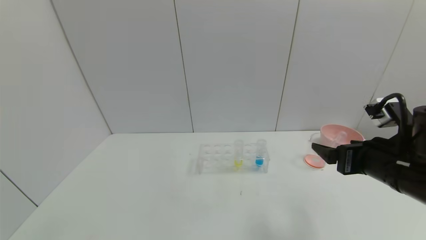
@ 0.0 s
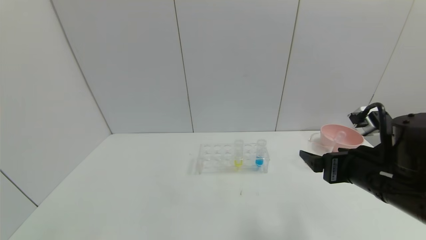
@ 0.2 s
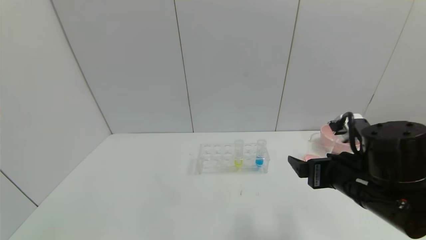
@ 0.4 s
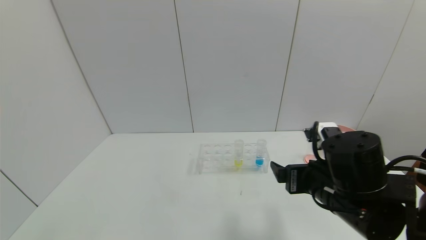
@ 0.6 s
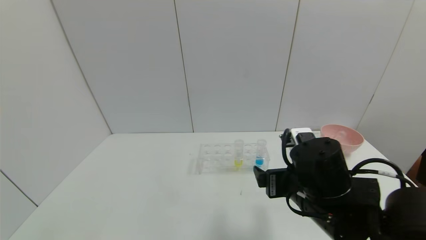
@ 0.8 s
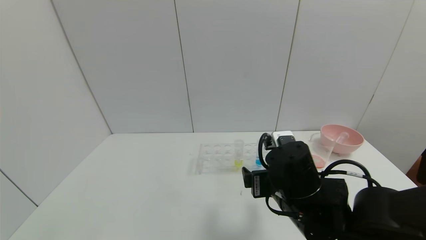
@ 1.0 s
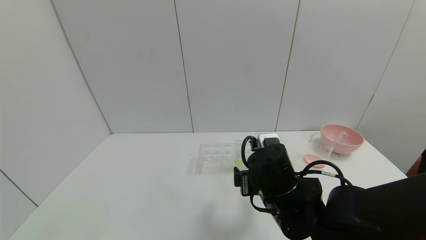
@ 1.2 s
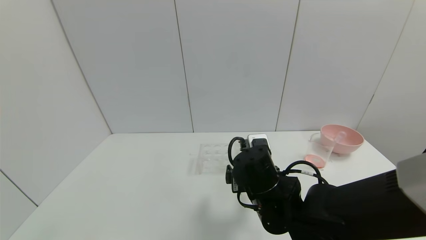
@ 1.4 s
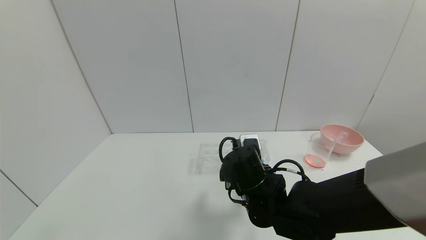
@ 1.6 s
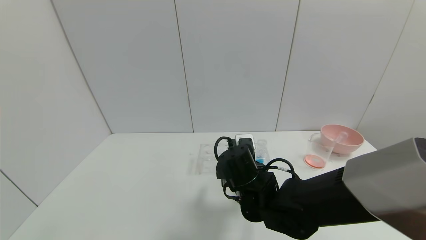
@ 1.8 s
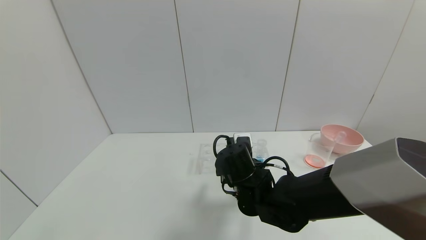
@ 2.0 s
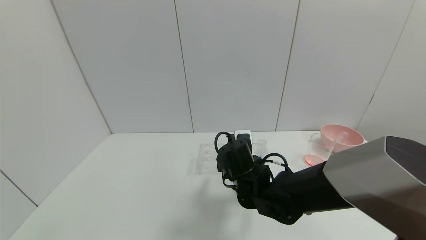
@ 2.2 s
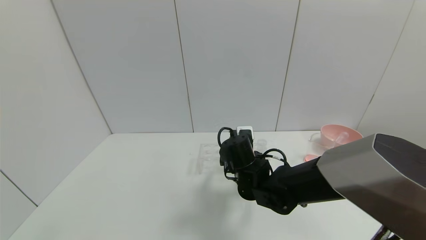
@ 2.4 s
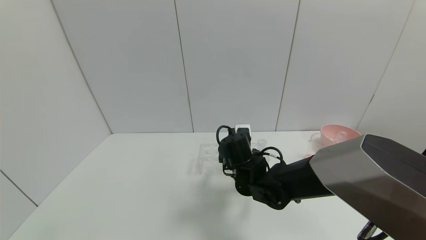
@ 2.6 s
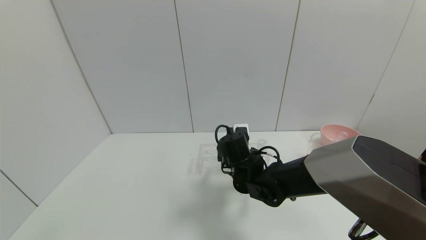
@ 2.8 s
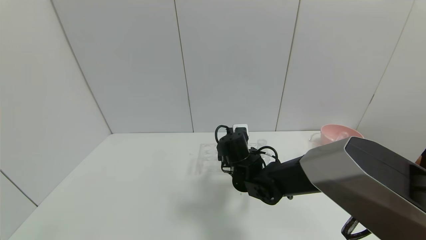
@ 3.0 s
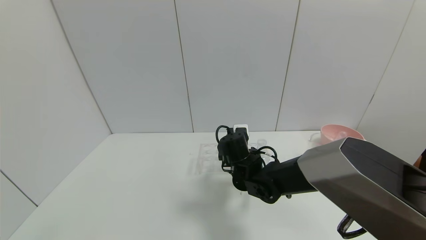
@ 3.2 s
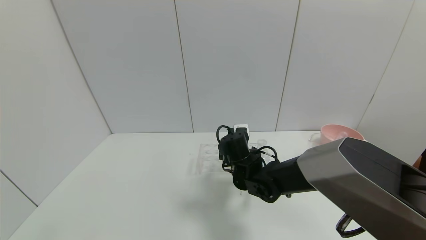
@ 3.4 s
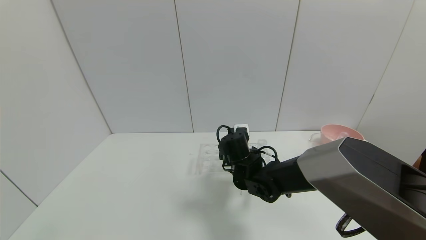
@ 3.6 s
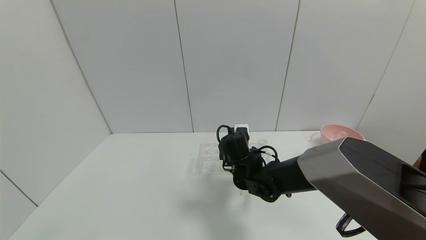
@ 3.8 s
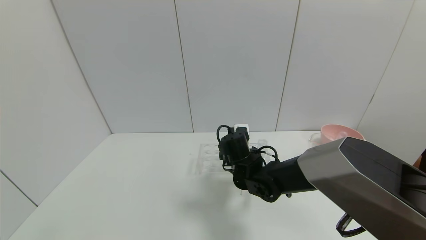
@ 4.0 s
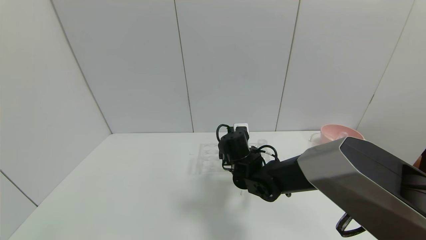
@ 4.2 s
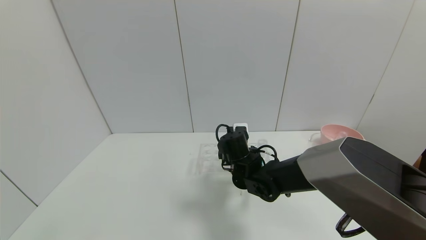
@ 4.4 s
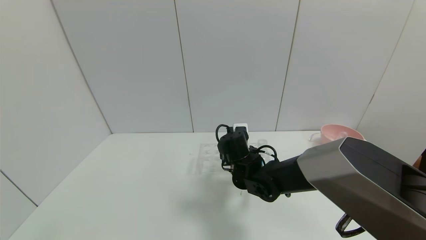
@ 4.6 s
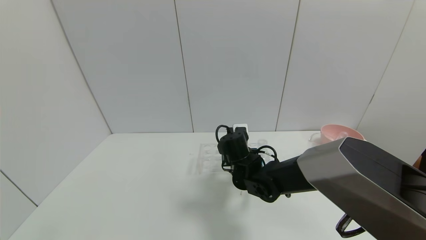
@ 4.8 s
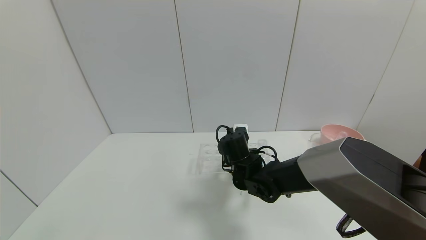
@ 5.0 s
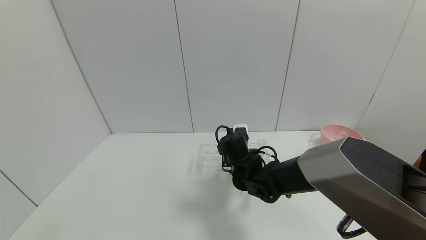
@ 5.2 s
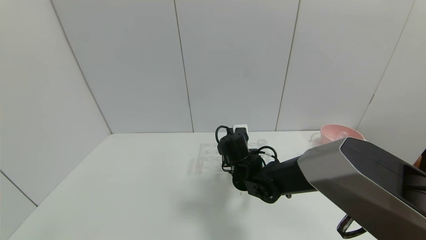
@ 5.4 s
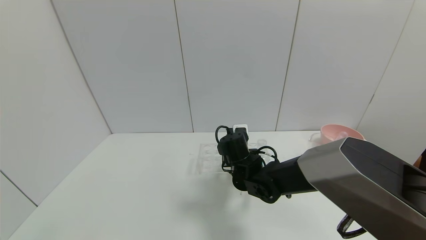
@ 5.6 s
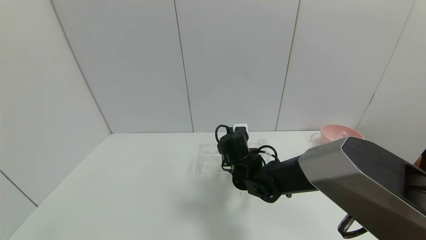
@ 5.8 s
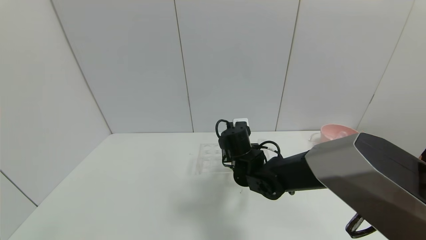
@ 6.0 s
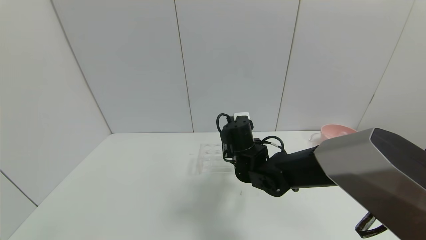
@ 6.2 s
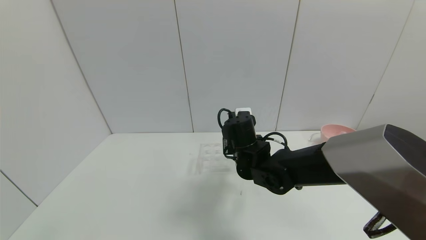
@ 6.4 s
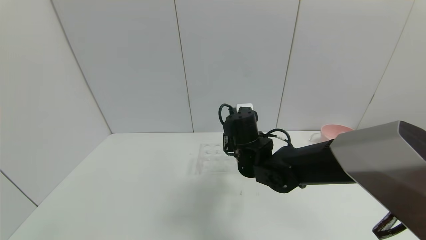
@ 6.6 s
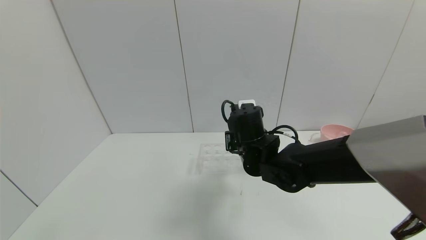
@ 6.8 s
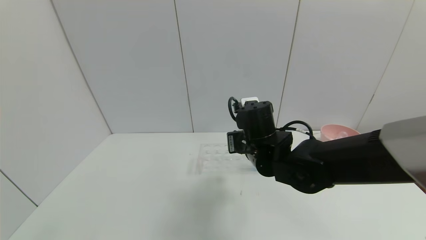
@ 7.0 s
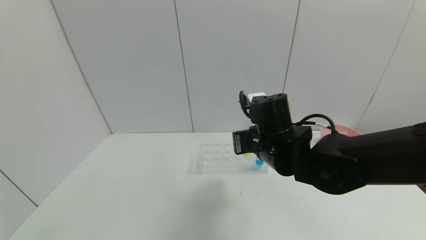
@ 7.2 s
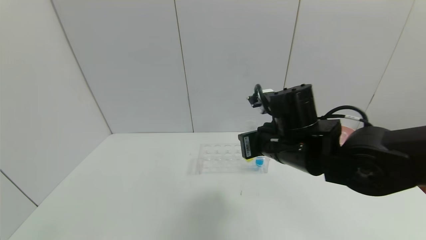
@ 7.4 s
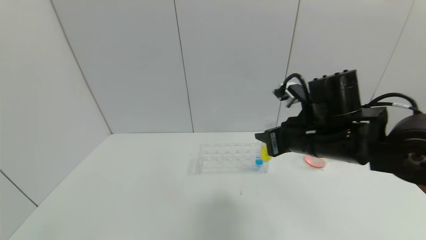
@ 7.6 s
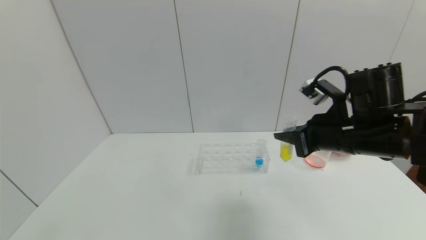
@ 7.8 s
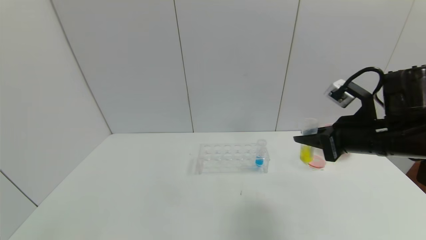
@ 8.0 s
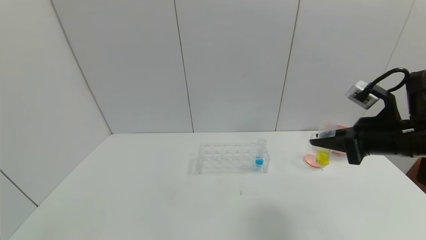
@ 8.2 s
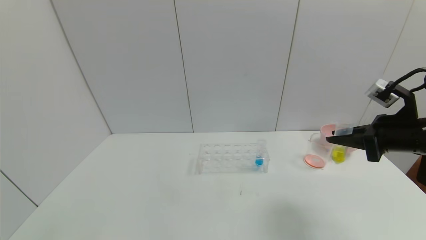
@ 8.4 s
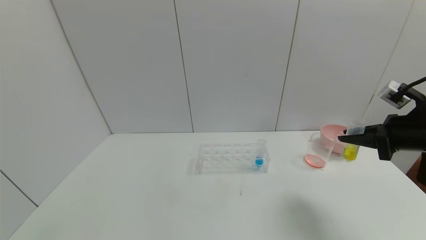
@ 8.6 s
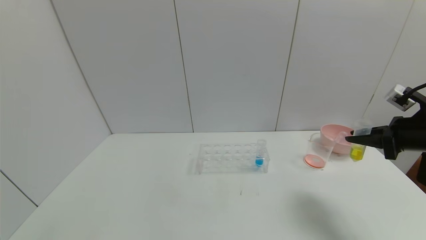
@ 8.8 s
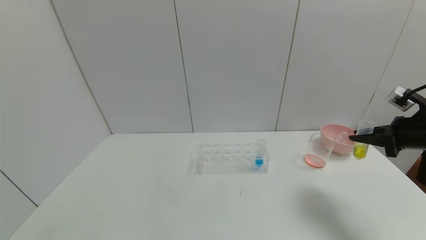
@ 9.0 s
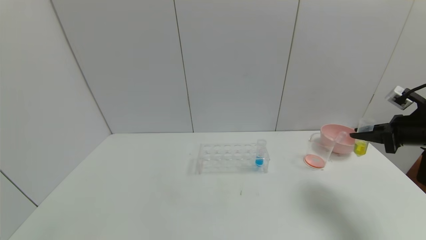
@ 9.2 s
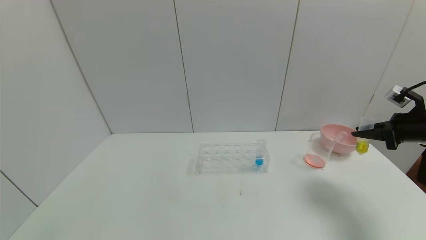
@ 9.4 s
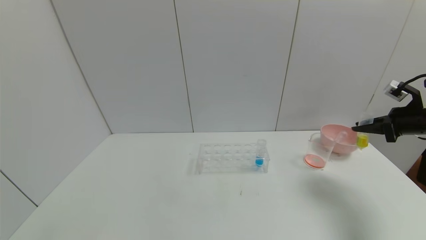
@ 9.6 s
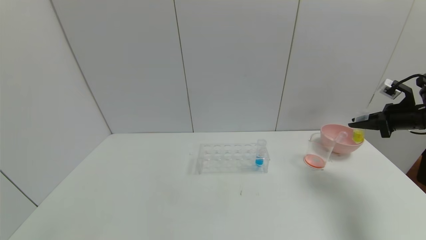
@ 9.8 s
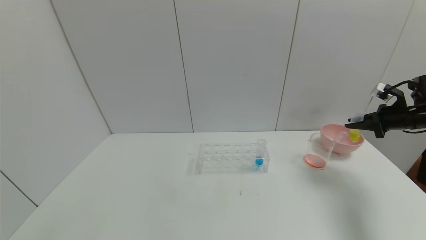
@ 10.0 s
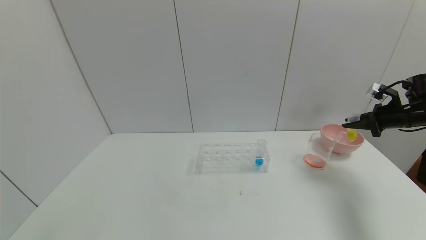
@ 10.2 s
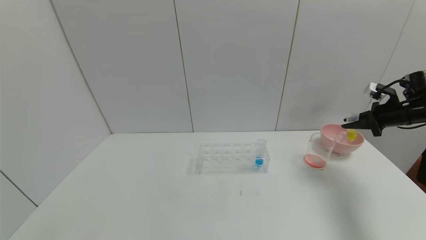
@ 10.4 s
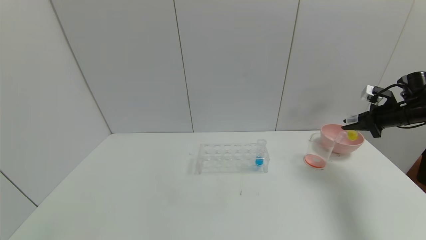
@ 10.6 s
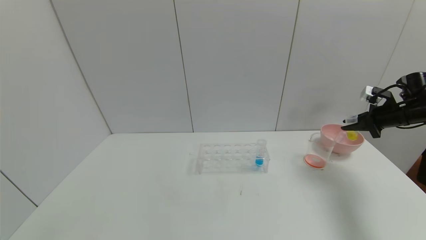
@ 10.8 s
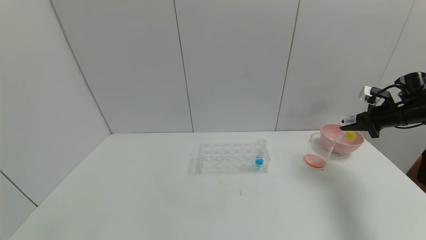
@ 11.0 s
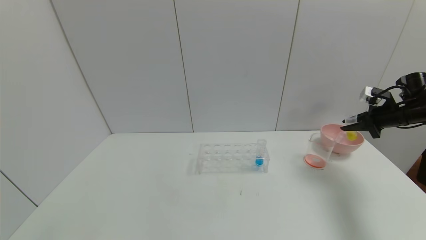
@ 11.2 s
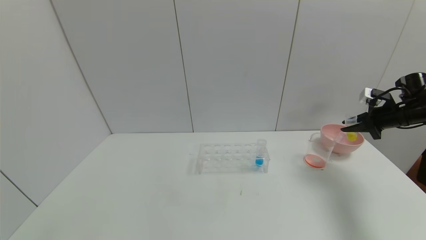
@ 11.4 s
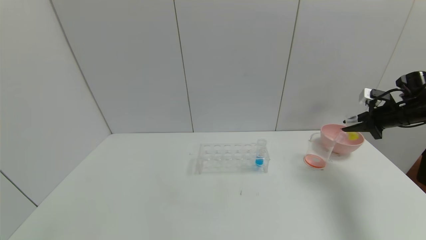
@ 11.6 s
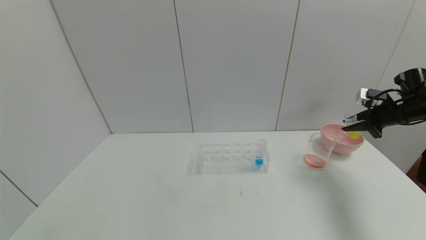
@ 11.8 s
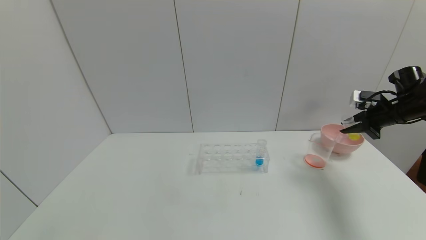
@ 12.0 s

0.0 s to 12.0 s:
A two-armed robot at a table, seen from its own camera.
Task of the whole recording: pick up the test tube with yellow pigment and the test tube with red pigment by grippers and pour them into the beaker.
Step, 0.0 to 5.0 s: Grasp the yellow reagent with the right gripper.
0.0 to 1.6 s: The right gripper is displaced to the left and downward by roughly 20 cm.
1.6 to 3.0 s: The right gripper is displaced forward by approximately 10 cm.
3.0 to 4.4 s: Both grippers stay about where they are.
4.4 to 6.0 s: The right gripper closes.
6.0 to 7.6 s: The right gripper goes approximately 20 cm upward, to the right and backward.
7.6 to 9.0 s: The right gripper is displaced to the right by approximately 25 cm.
9.0 to 10.4 s: The right gripper heads forward and to the right, covering about 15 cm.
10.4 to 12.0 s: There are only small adjustments of the grippers.

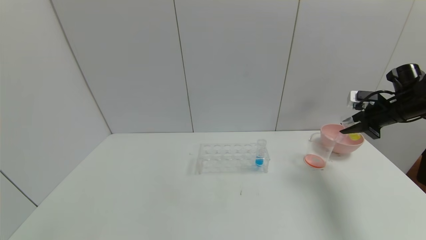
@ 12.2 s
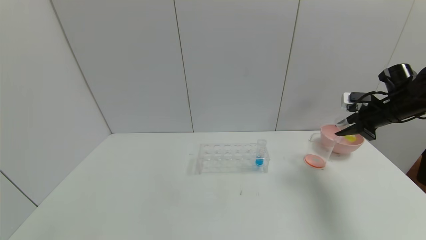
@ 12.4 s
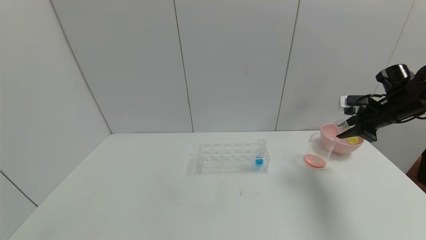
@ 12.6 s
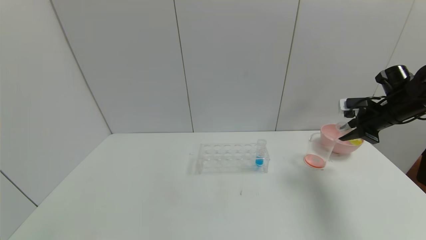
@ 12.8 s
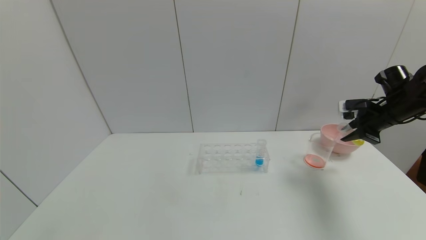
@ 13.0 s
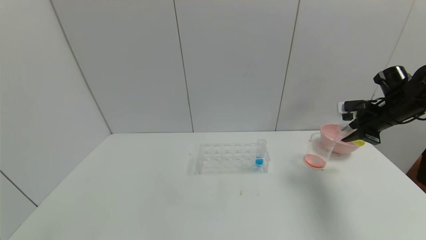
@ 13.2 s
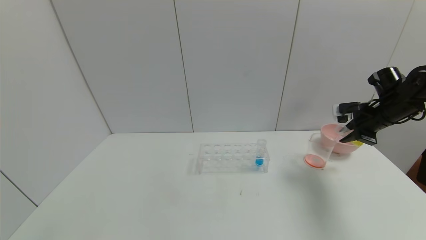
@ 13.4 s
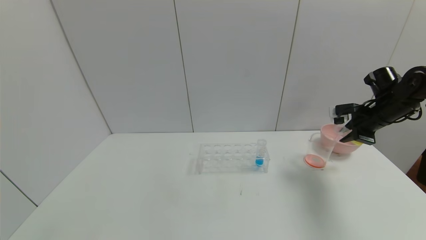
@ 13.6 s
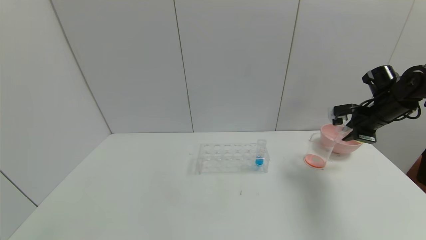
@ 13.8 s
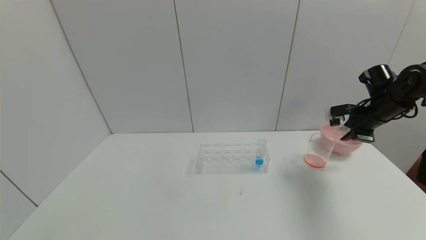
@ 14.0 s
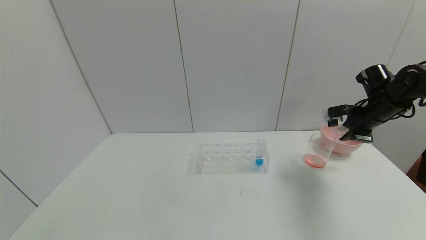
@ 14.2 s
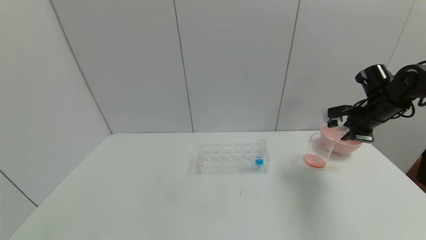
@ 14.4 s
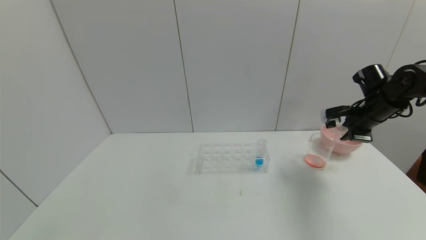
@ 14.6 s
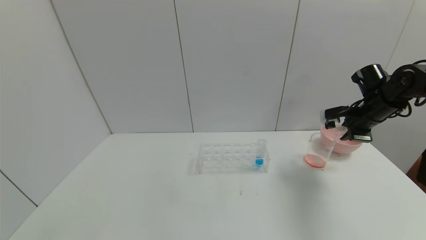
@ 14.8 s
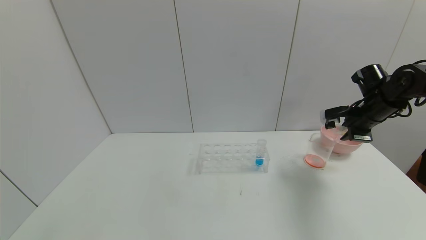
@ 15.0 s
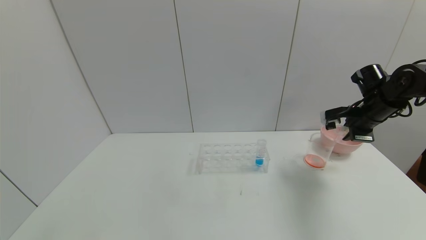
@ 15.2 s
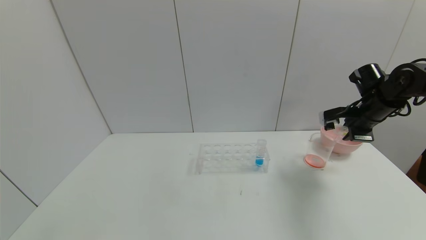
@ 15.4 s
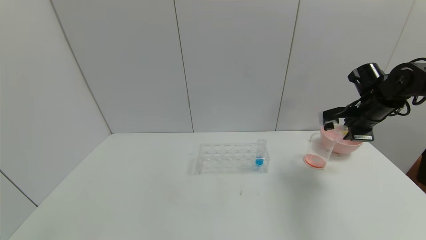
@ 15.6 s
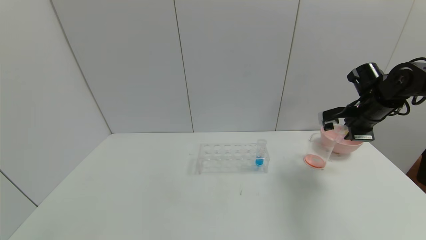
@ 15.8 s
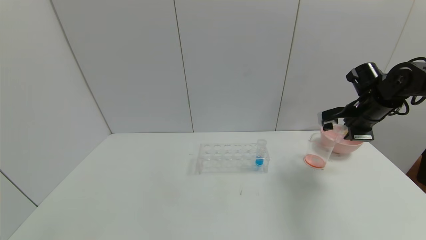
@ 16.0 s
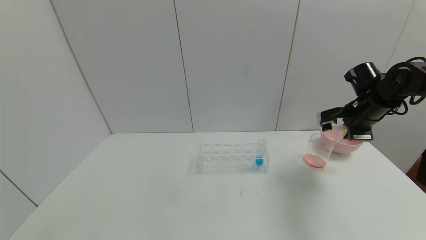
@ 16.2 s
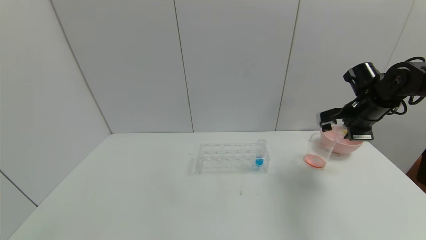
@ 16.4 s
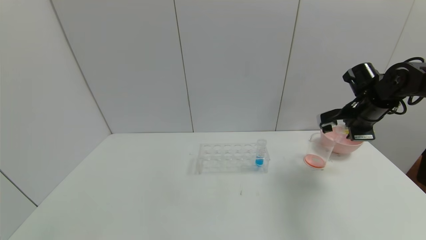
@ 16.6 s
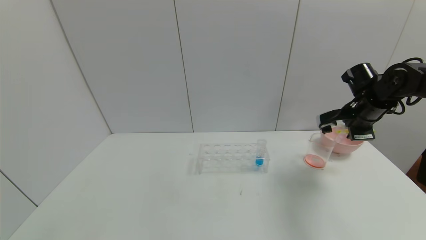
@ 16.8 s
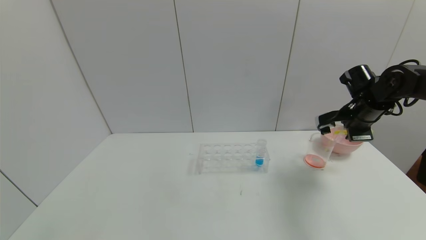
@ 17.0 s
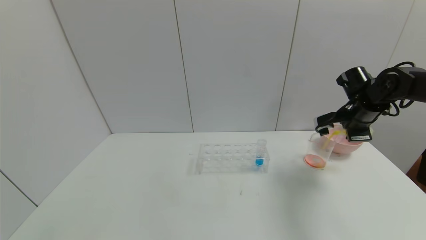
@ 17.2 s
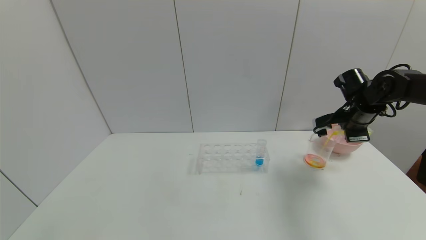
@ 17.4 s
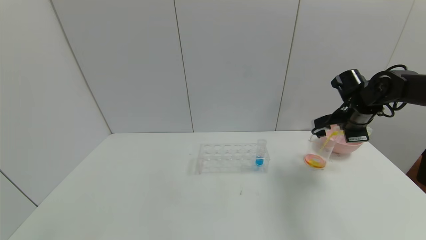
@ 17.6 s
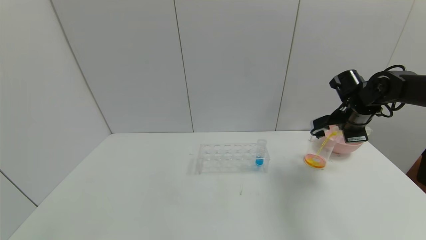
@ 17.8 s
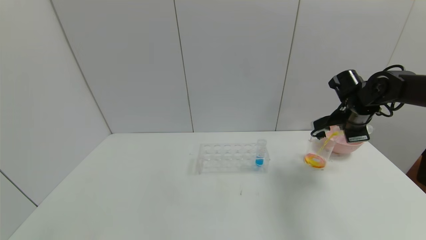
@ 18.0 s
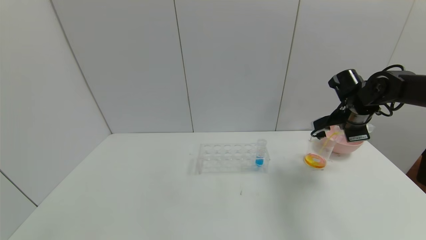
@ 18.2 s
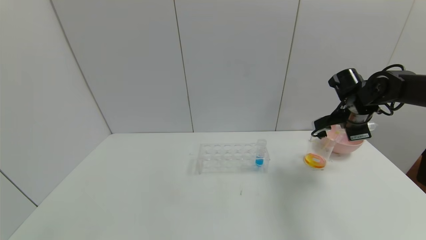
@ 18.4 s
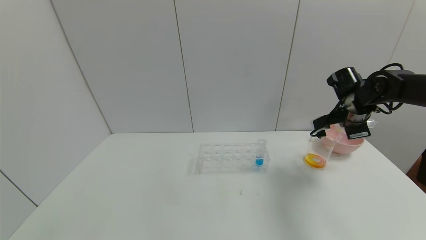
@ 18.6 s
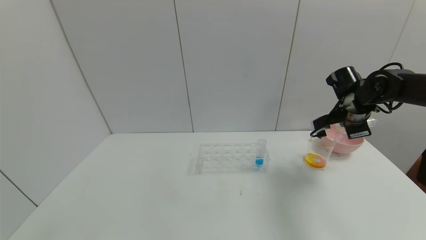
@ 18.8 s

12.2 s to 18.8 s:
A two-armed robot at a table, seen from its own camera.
Task of the whole recording: pick up the test tube with yellow pigment and the test tube with red pigment by grippers and pour them into the beaker.
13.8 to 15.4 s: The grippers make only small movements.
15.4 to 17.2 s: The grippers stay close to where they were, moving slightly.
17.2 to 18.8 s: There are only small adjustments of the grippers.
